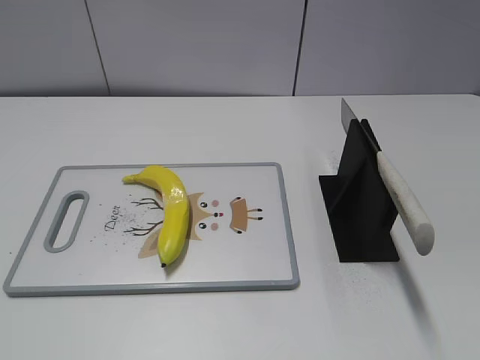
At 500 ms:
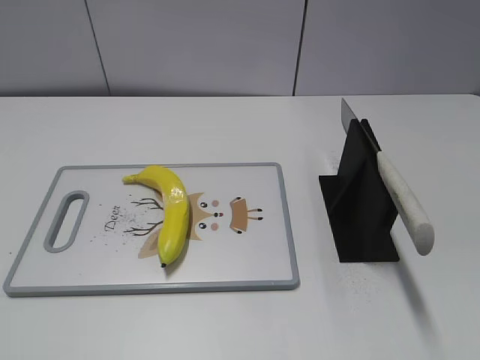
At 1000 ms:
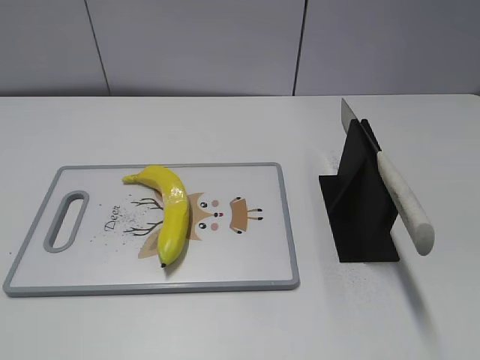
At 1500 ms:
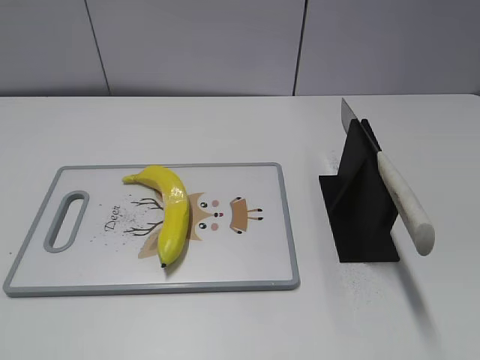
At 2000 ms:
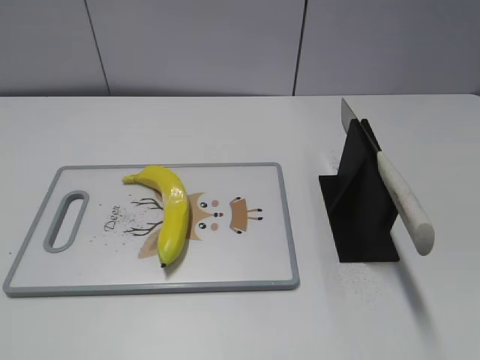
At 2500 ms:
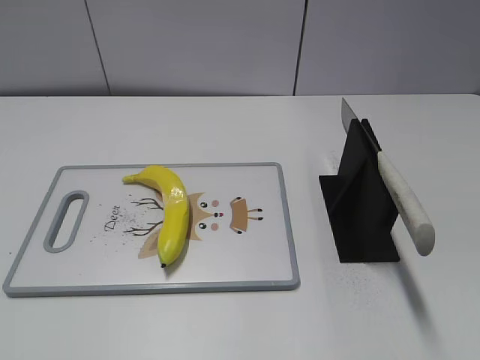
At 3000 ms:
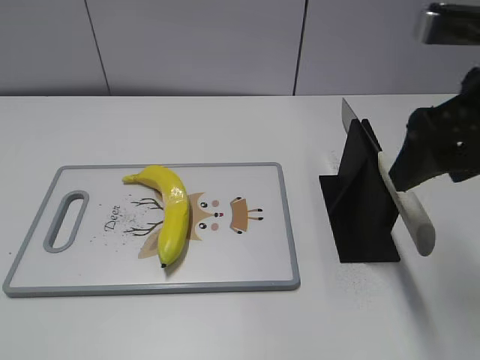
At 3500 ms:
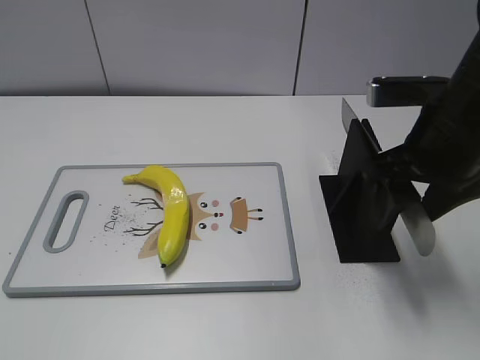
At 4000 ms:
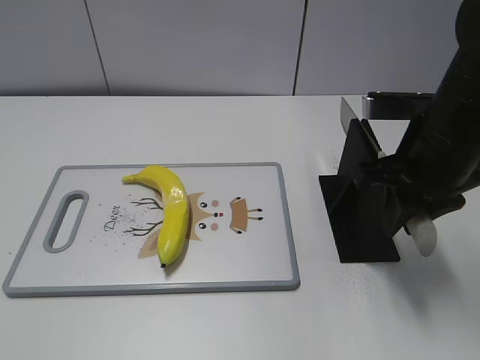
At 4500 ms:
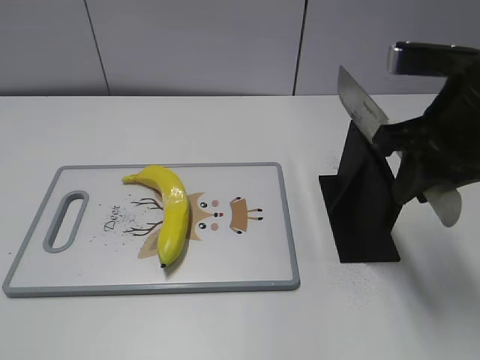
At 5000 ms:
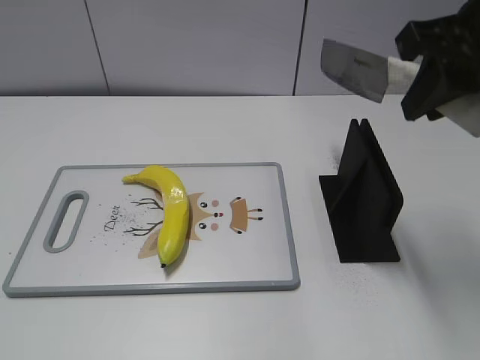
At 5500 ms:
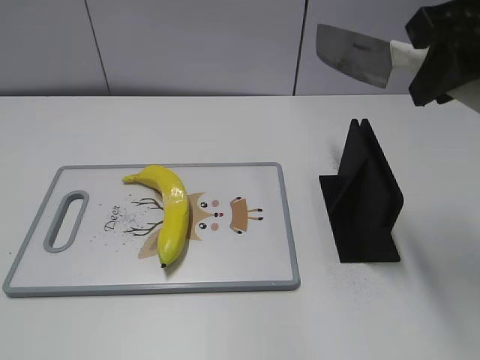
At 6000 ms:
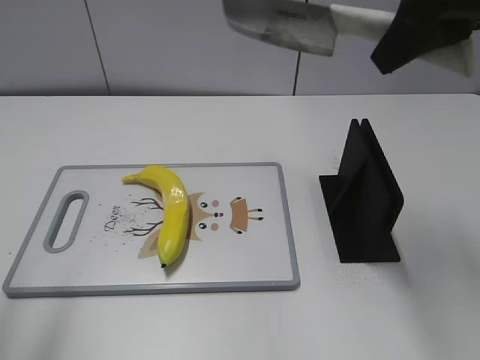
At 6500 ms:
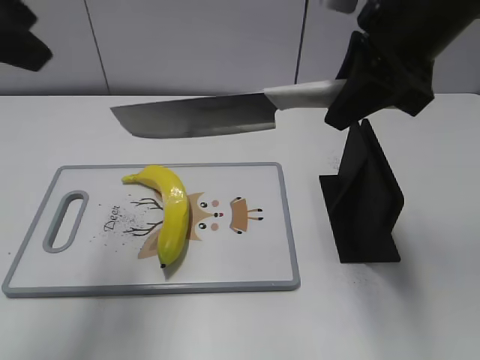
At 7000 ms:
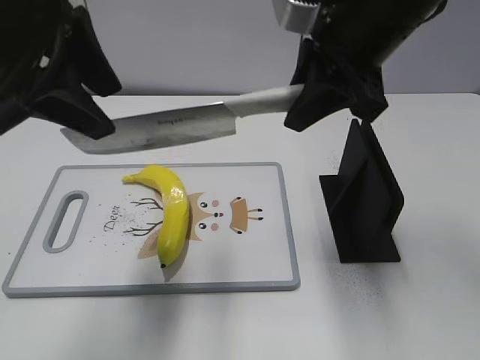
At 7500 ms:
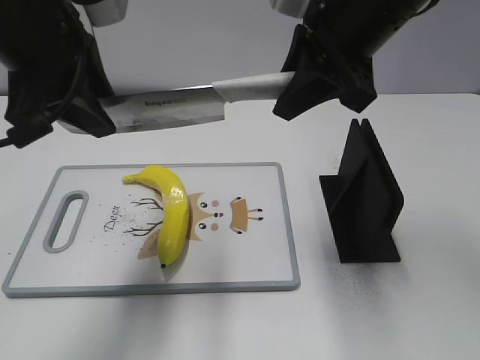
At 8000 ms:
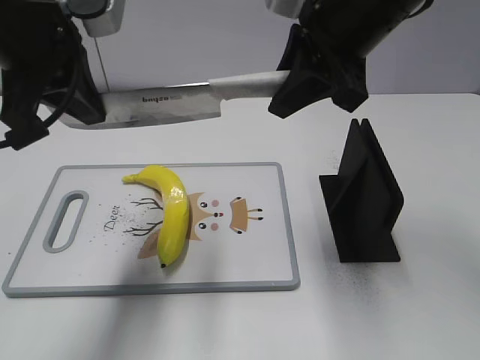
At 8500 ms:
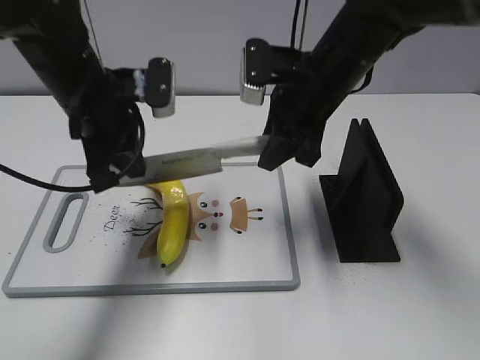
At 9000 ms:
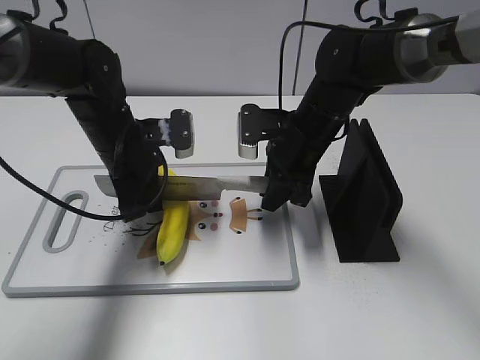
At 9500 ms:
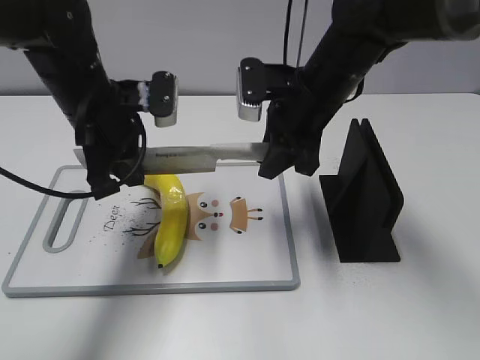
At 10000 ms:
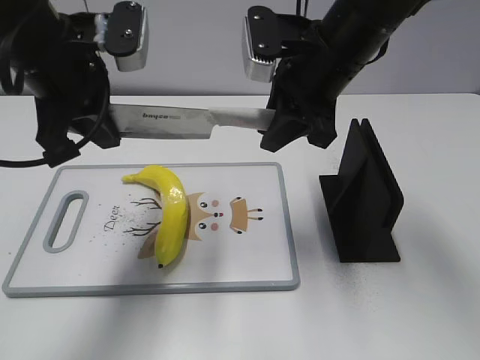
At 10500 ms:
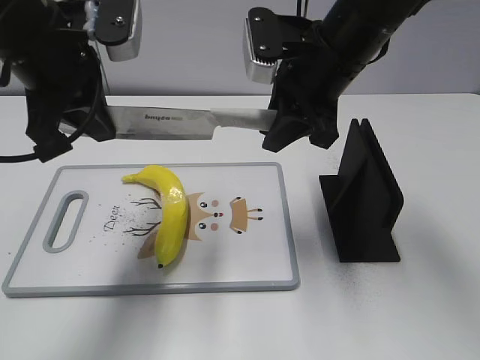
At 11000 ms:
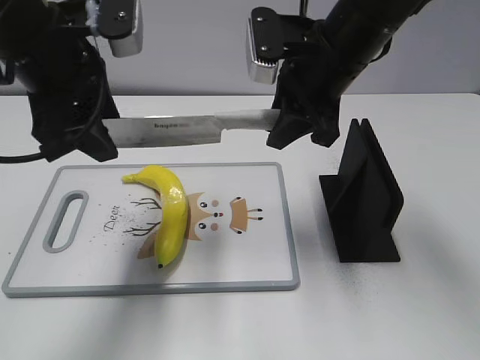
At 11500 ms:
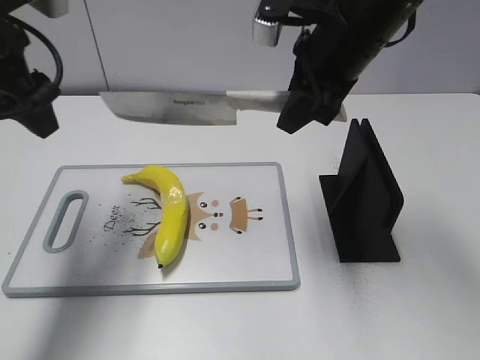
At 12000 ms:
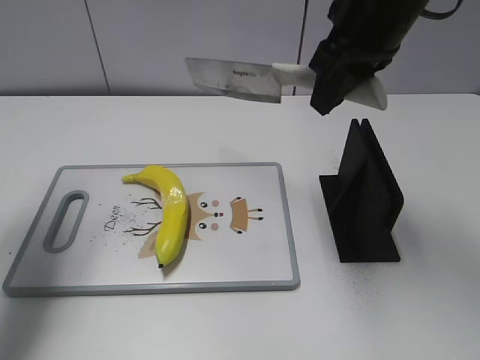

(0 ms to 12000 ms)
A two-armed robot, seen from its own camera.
Task of the whole recording: cut plastic banana.
Step, 0 ms - 5000 ms: Grab the knife handle with your right hand.
Step, 5500 ms - 9500 ms: Hold the blade with your left hand.
Step, 10000 ms - 11000 ms: Cut the banana with your left hand.
2000 ms - 4000 ms: The right gripper shifts approximately 25 cm forward, downward and to the left, and closes its fingers.
4000 ms - 6000 ms: The right gripper travels upward by about 15 cm; the left gripper moves forward and upward, about 15 cm.
6000 ms - 8000 ms: The right gripper goes some 10 cm to the left and downward, while the left gripper shifts roughly 20 cm forward and to the right, and closes up.
8000 ms - 10000 ms: The right gripper goes downward and returns, some 20 cm each way. The left gripper goes downward and returns, roughly 20 cm each way.
10000 ms - 12000 ms: The right gripper shifts about 5 cm upward. Meanwhile the left gripper shifts about 15 cm to the left, and opens up.

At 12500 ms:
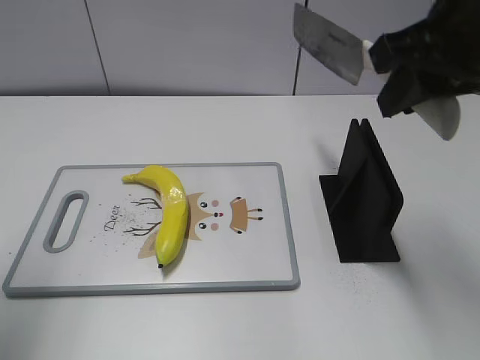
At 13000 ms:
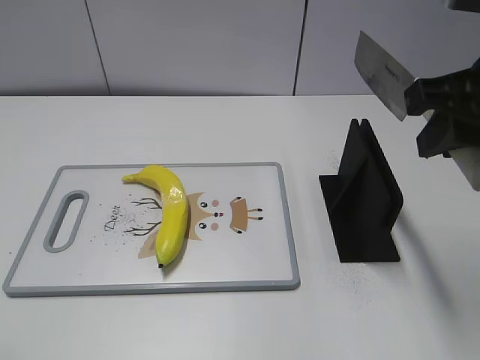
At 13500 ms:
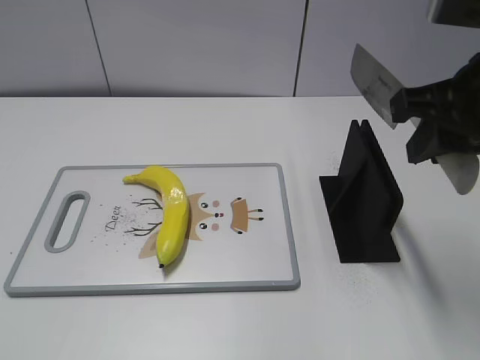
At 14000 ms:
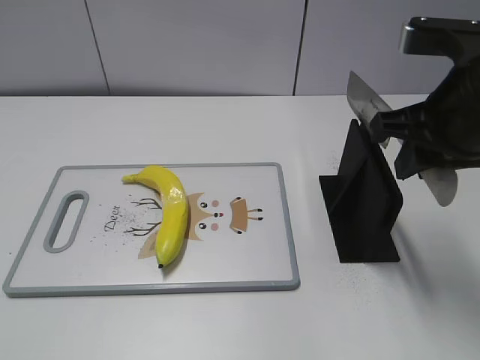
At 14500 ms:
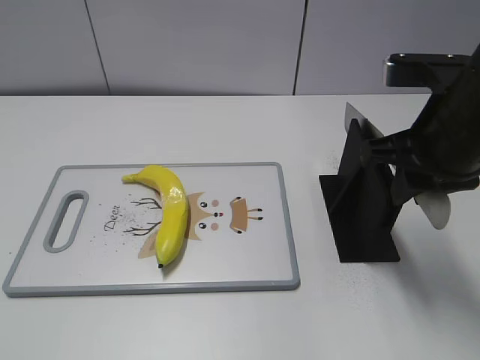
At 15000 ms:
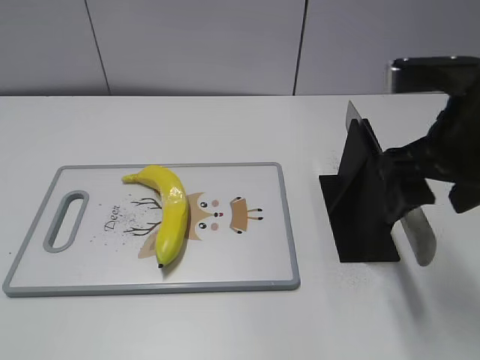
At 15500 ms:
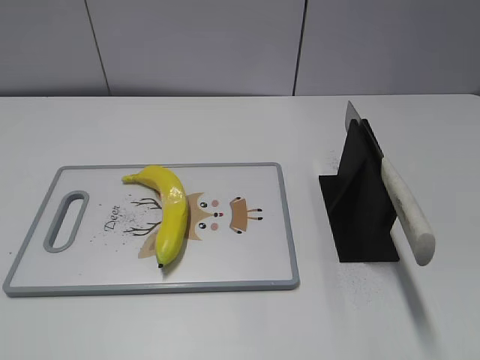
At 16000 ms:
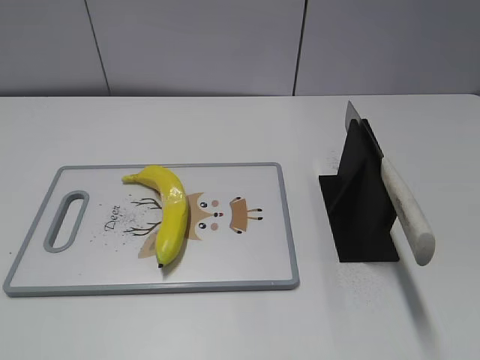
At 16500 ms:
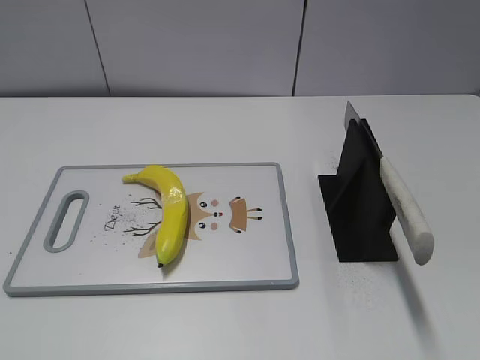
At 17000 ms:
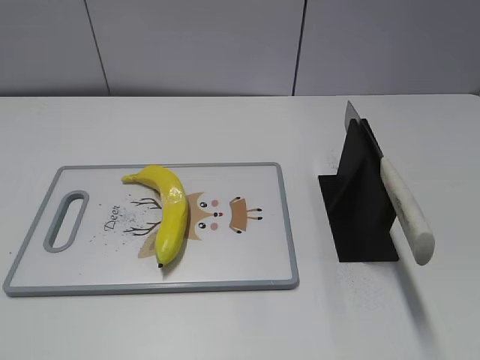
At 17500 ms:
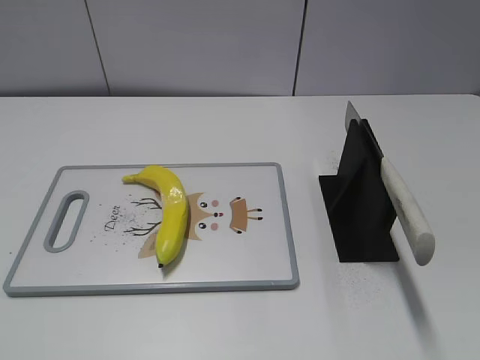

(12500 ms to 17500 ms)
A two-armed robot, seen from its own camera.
Task of the whole recording: cut plastic banana.
Step, 14000 ms - 17500 ms: Place the knife on the storage rack with your right hand.
12500 ms - 15000 ms: The right gripper moves downward, some 10 cm, and opens its fingers. The left gripper goes approximately 25 cm backward and downward.
15000 ms - 17500 ms: The right gripper is displaced backward and to the right by some 25 cm.

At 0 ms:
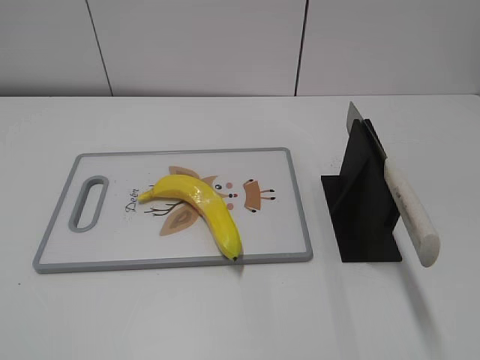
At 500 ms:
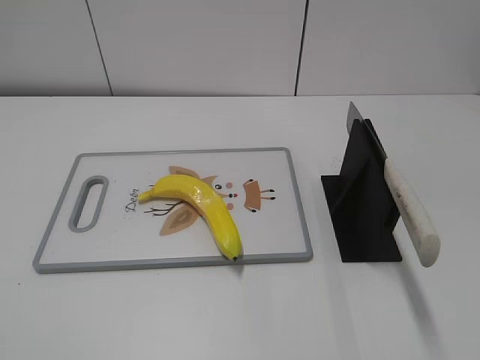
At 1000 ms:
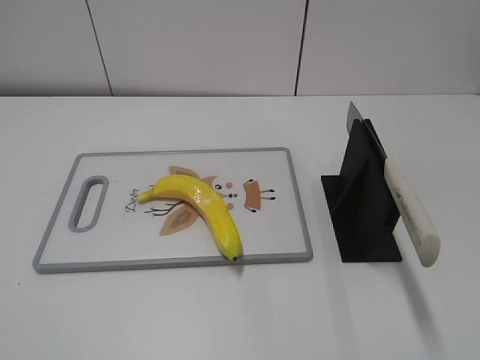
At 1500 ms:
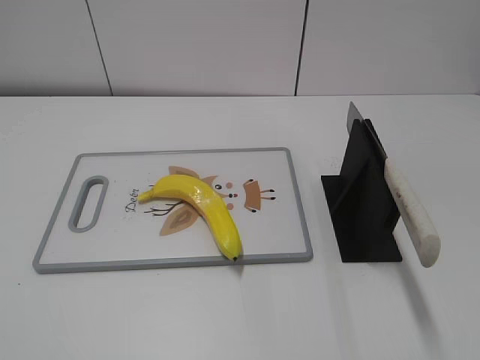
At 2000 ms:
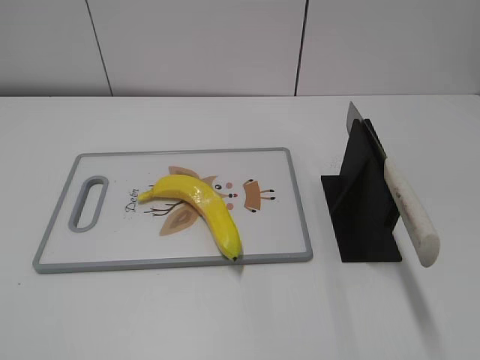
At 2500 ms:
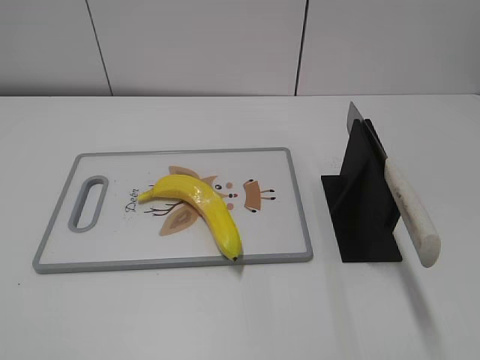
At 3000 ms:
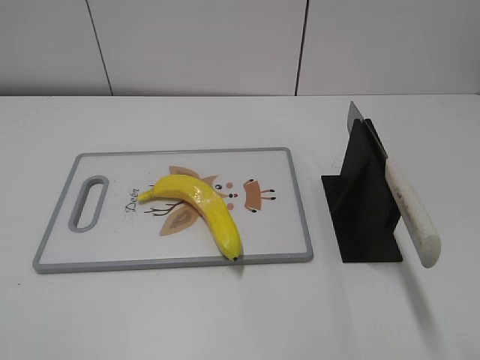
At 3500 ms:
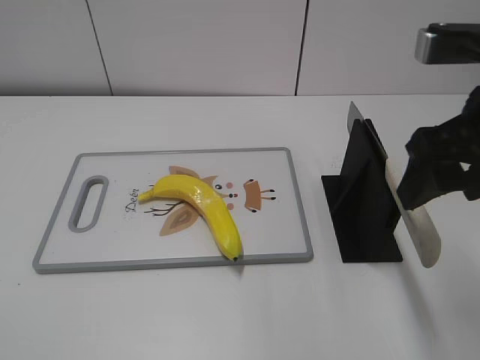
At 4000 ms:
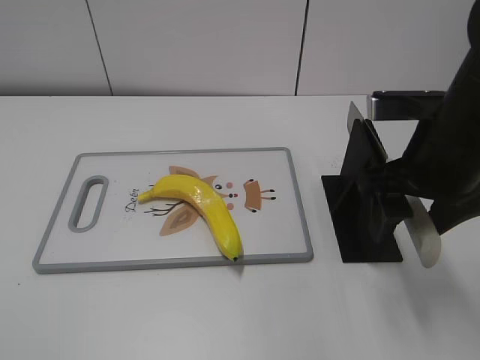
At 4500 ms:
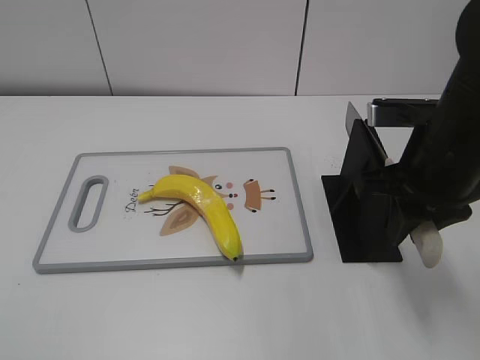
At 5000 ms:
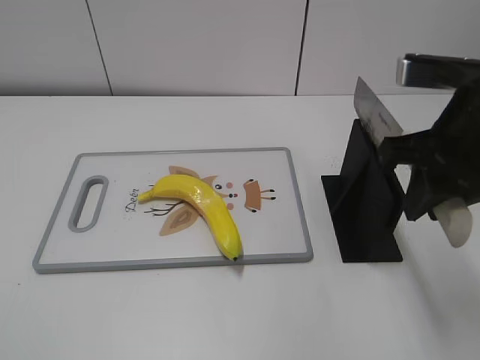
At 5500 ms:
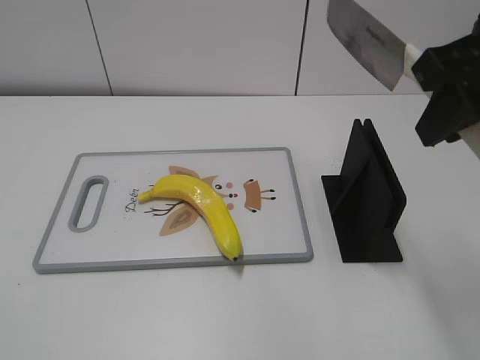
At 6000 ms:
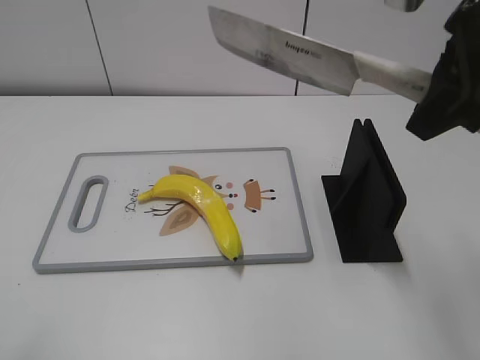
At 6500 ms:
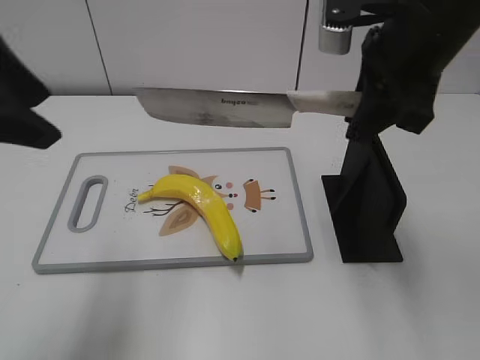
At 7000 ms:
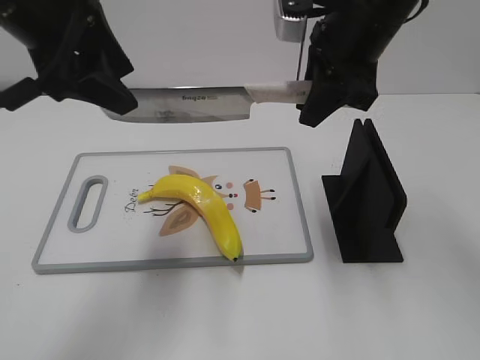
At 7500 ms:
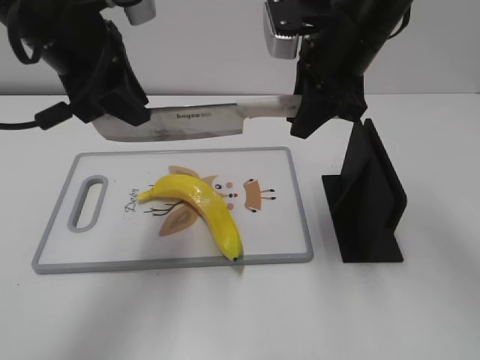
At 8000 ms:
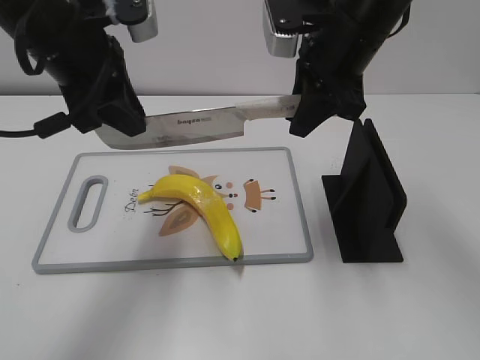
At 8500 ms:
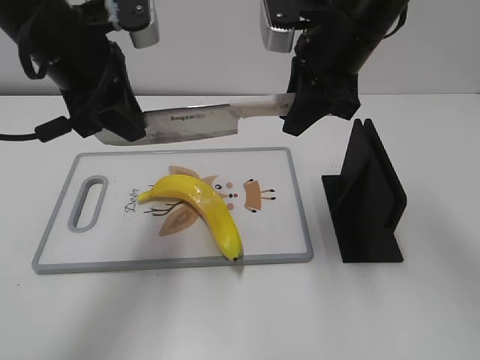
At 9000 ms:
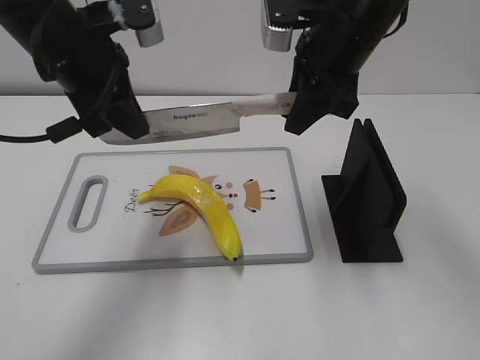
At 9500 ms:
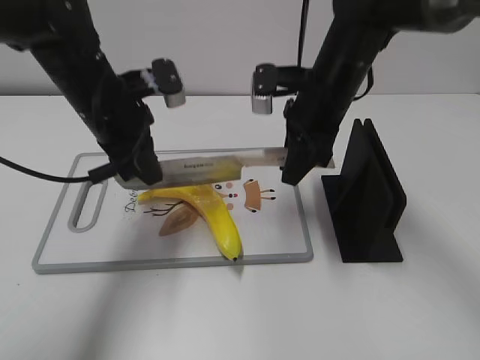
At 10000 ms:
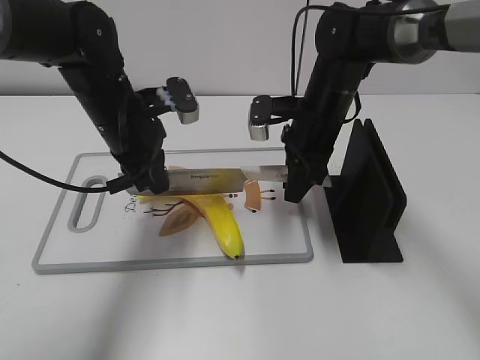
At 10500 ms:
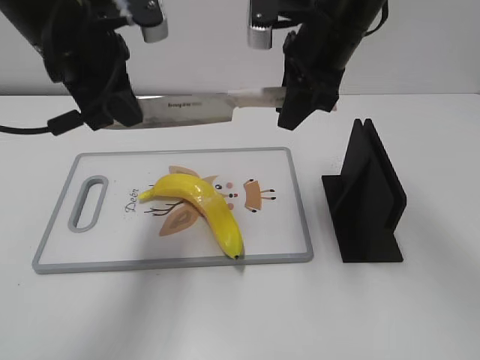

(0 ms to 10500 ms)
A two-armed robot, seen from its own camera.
Task of the whole recording: cut plastic banana.
Step, 0 ms - 5000 ms: Grab the knife handle with your right hand.
2000 ms - 4000 ms: The right gripper goes roughly 30 cm forward and to the left.
4000 ms - 6500 ms: The right gripper is displaced upward by some 10 cm, and closes. Meanwhile the left gripper shifts about 25 cm forward and to the right.
6500 ms - 8500 ms: The left gripper goes about 15 cm forward, to the right and downward, and closes up, while the right gripper goes some 5 cm forward.
8500 ms - 10500 ms: The left gripper goes downward and returns, some 10 cm each way, and closes. The right gripper reaches roughly 15 cm downward, then returns.
